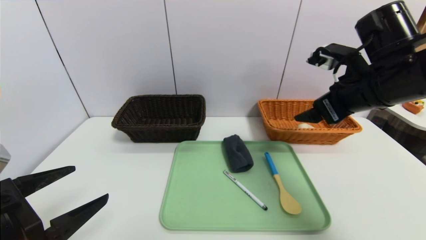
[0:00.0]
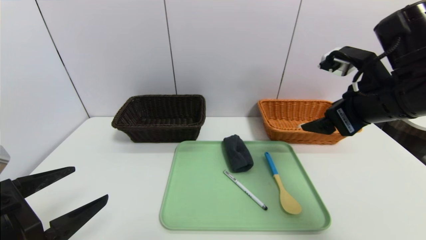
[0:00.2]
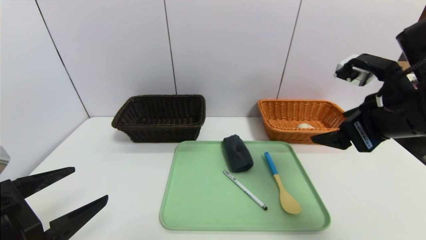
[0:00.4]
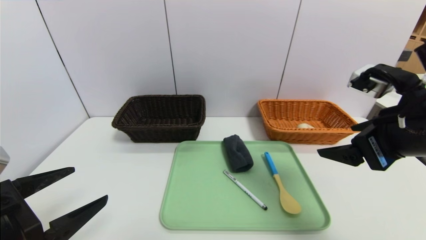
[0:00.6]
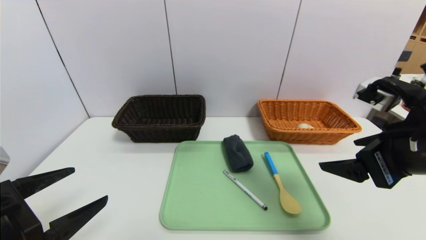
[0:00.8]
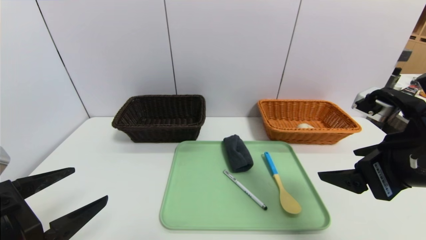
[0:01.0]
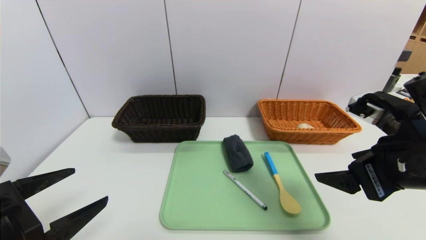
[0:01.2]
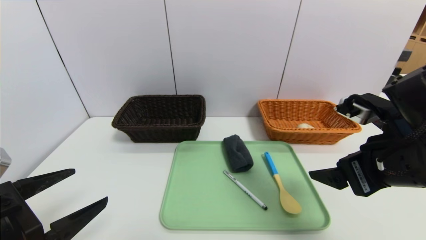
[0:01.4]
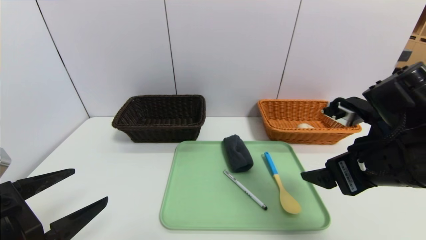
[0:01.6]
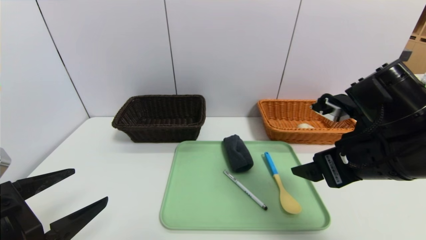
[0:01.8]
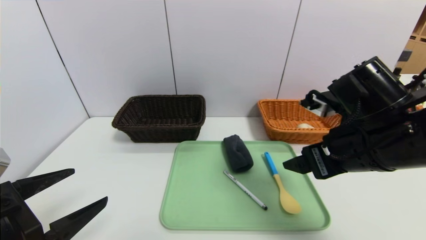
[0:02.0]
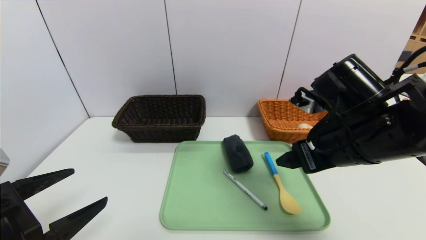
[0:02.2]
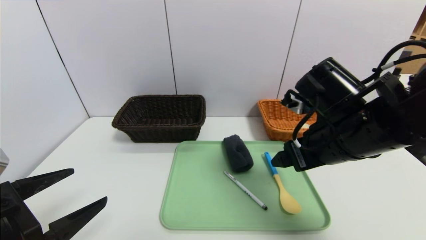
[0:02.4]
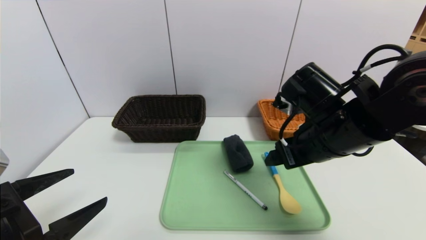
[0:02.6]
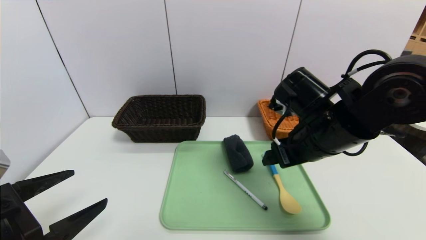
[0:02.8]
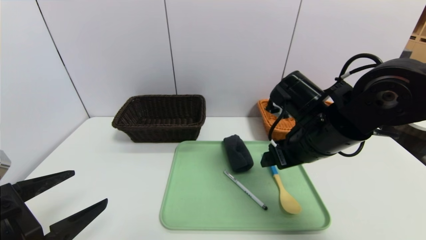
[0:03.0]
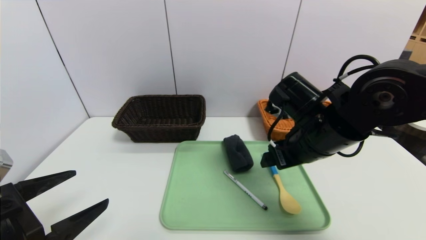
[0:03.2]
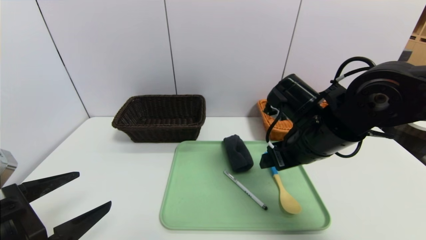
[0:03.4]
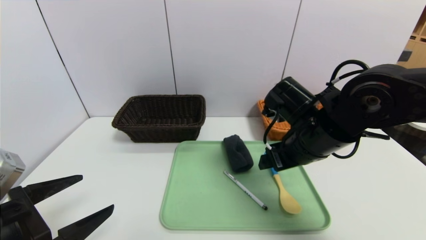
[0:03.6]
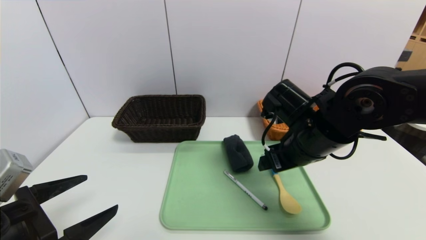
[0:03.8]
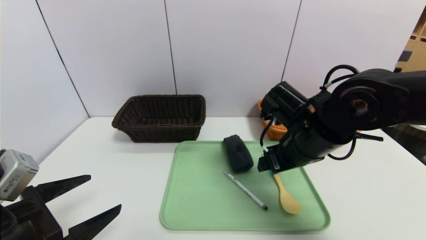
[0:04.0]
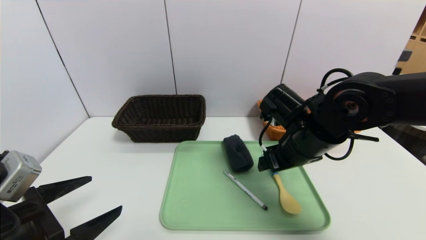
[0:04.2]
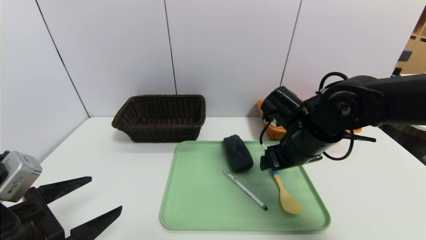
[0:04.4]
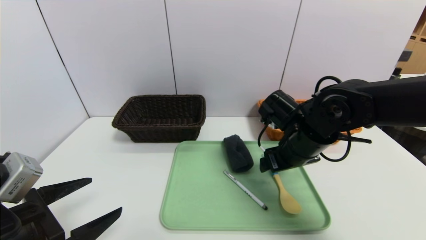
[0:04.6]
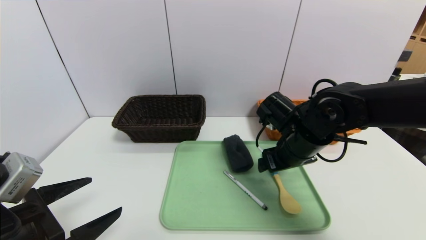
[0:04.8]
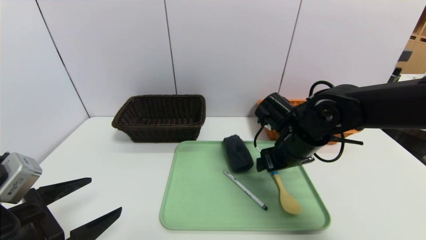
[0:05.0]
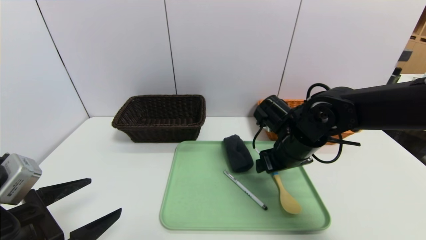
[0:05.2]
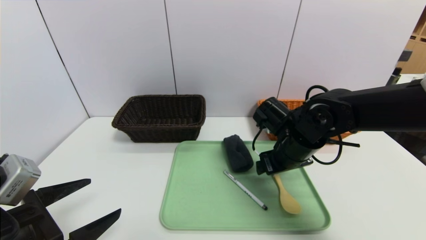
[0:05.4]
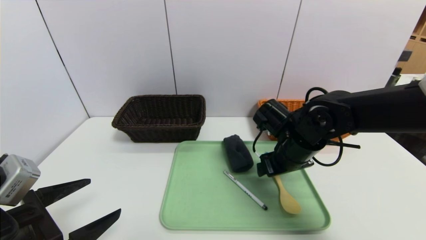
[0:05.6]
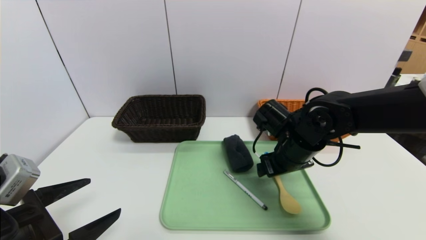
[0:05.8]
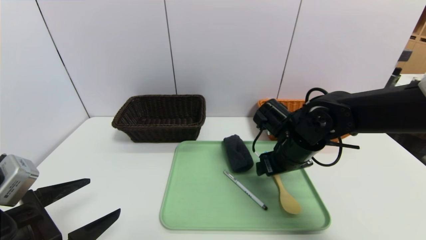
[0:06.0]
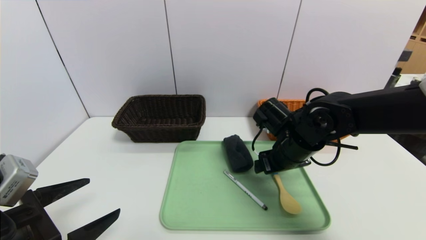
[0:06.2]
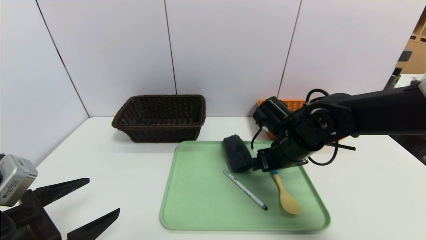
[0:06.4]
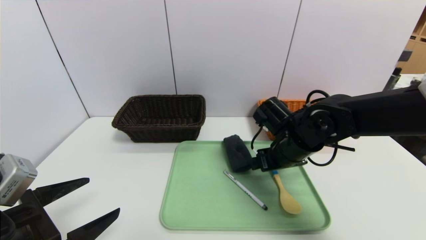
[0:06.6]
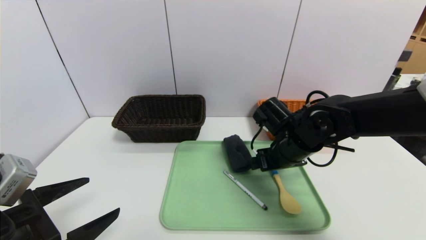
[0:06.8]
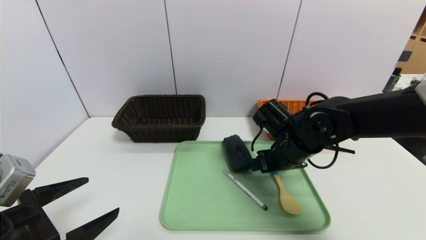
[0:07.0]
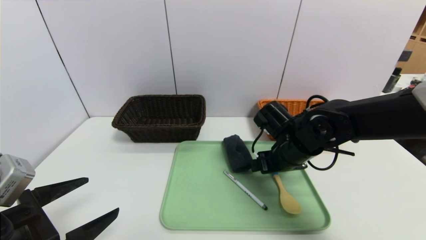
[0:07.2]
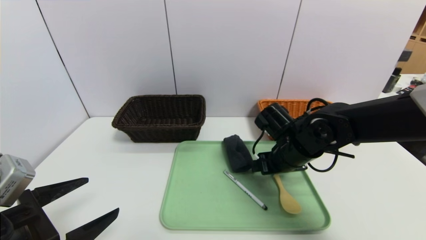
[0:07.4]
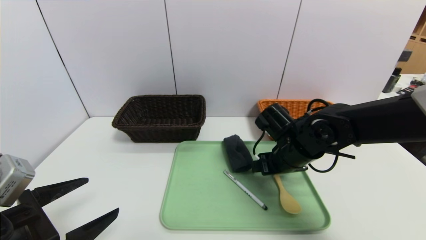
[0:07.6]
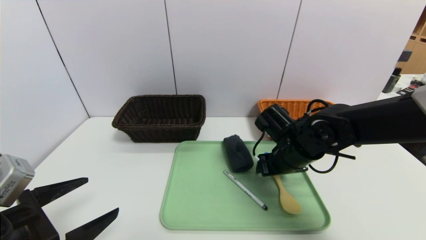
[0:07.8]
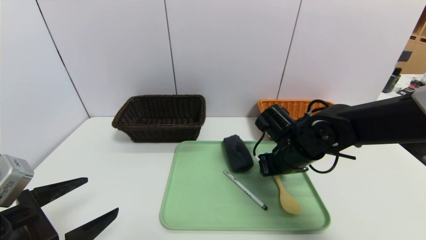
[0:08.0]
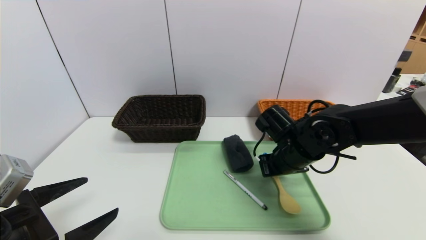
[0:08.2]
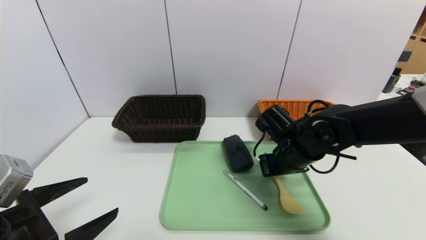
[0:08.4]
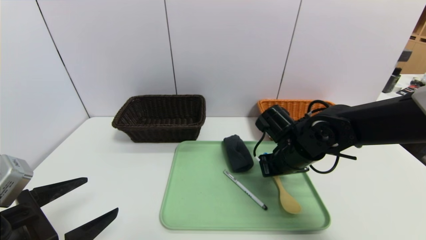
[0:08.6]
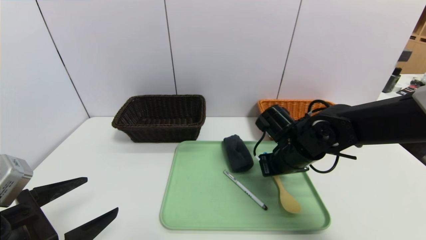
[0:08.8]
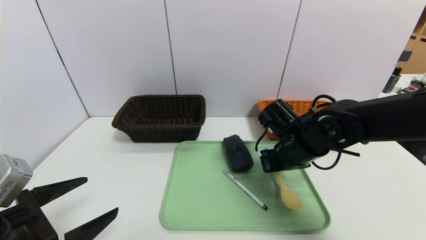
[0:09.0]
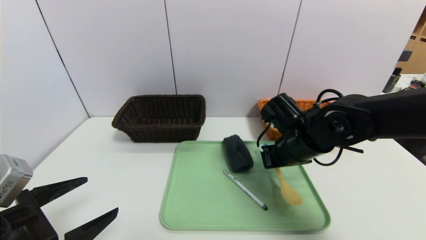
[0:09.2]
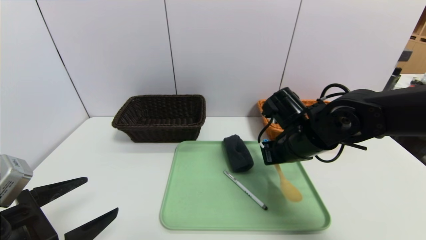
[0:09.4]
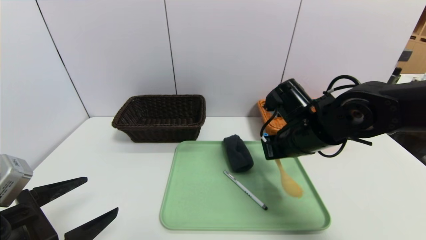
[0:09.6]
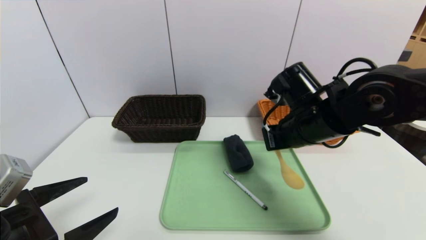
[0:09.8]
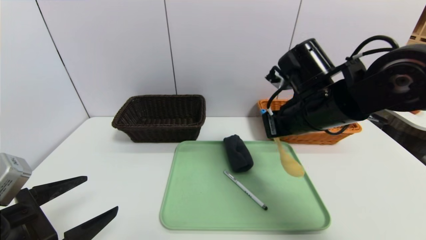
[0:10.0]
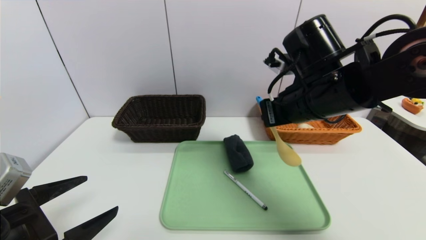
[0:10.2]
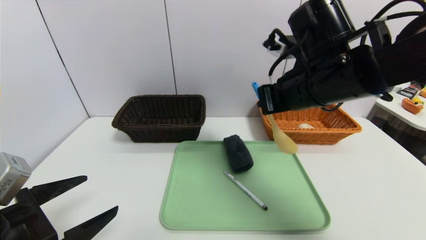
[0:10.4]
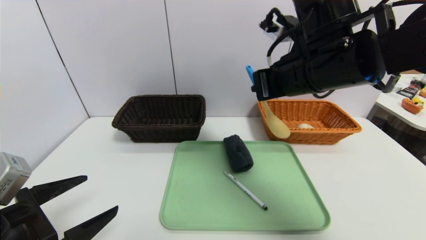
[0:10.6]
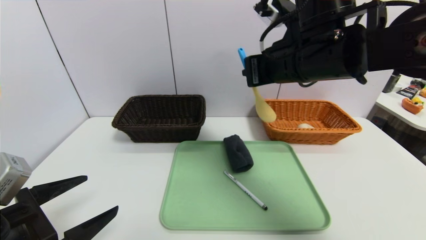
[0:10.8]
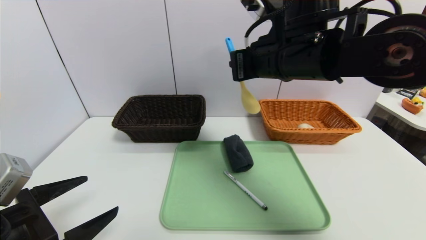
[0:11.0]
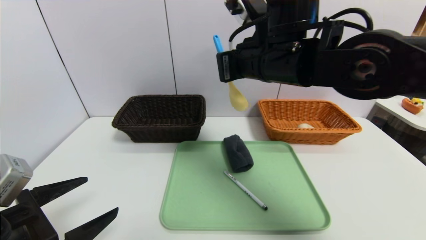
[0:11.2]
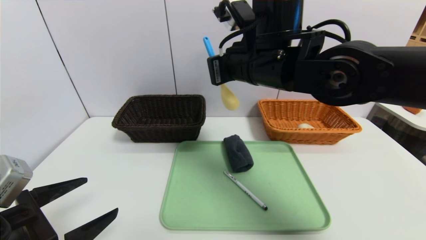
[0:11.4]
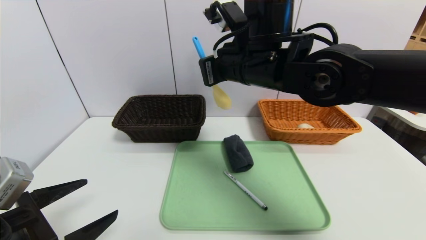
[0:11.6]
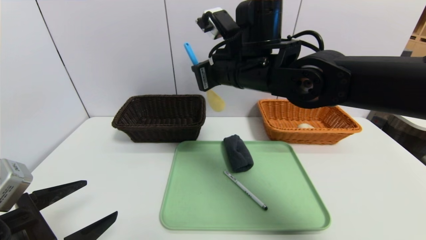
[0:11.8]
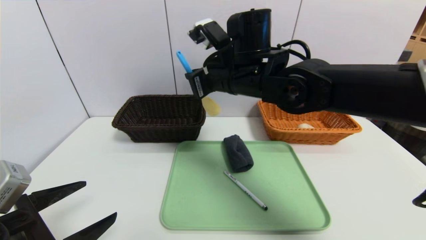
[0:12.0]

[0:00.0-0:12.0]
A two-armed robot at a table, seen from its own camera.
Task of the whole recording: place the food in the right basket with the right gripper, and place the non food items in the left basket with the left gripper.
0:00.0 to 0:01.6: The right gripper shifts some 10 cm backward and downward.
0:01.6 to 0:03.0: The right gripper shifts roughly 10 cm forward and to the left.
0:03.0 to 0:04.4: The grippers stay close to where they were, moving slightly.
0:04.4 to 0:07.6: There are only small adjustments of the grippers.
0:07.6 to 0:09.0: The right gripper closes its fingers.
0:09.0 to 0:10.4: The right gripper is displaced upward by approximately 15 cm.
0:10.4 to 0:12.0: The right gripper heads to the left and forward, covering approximately 10 cm.

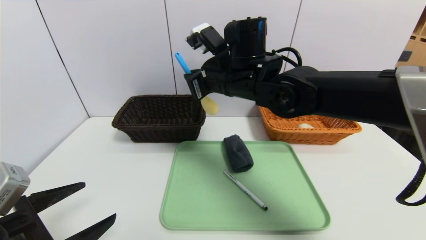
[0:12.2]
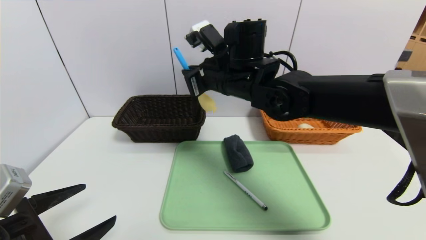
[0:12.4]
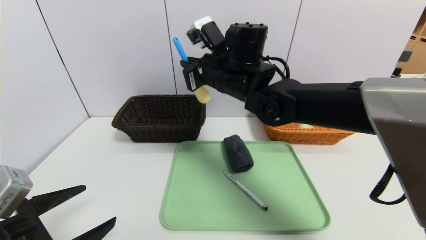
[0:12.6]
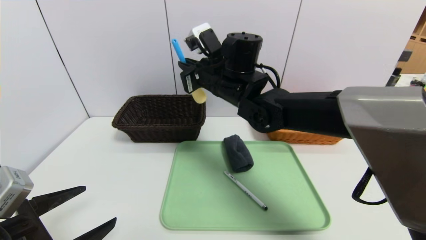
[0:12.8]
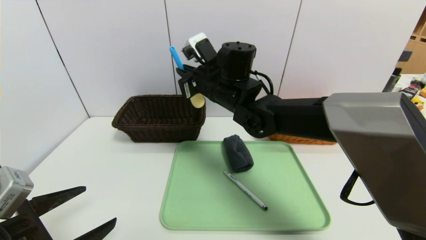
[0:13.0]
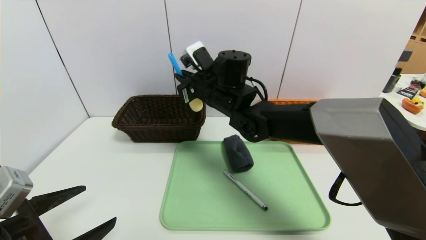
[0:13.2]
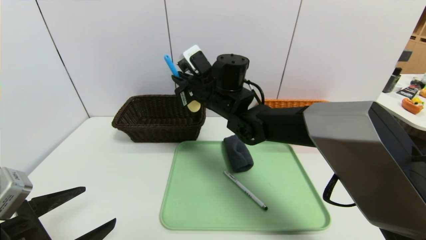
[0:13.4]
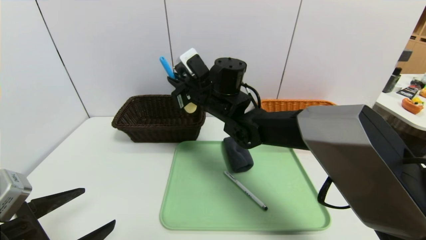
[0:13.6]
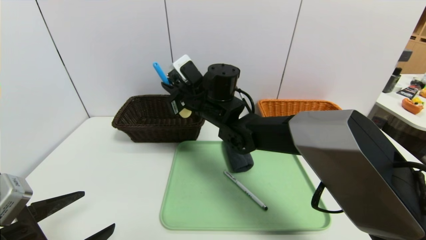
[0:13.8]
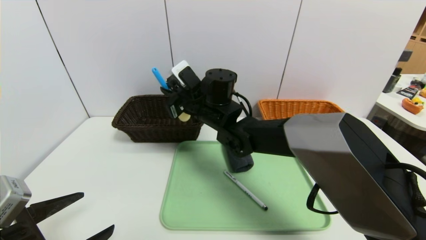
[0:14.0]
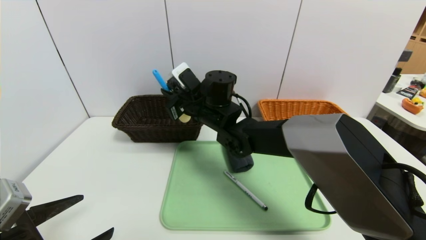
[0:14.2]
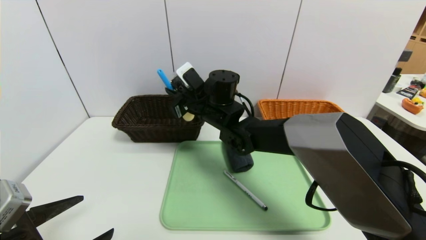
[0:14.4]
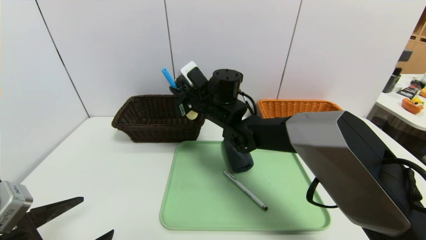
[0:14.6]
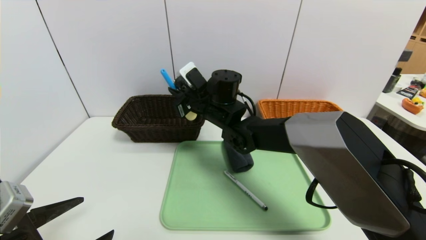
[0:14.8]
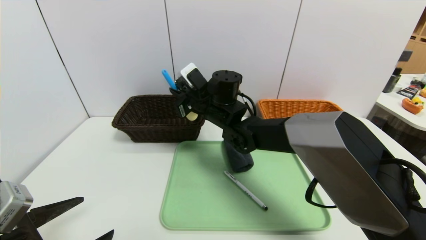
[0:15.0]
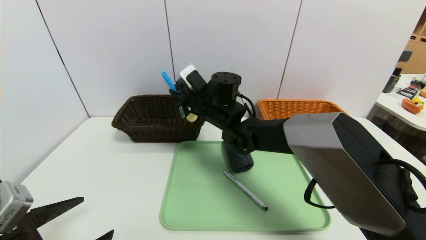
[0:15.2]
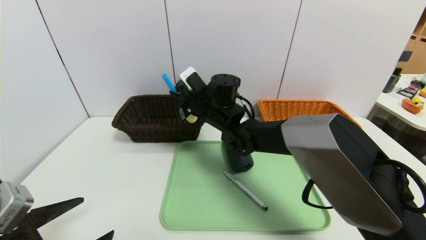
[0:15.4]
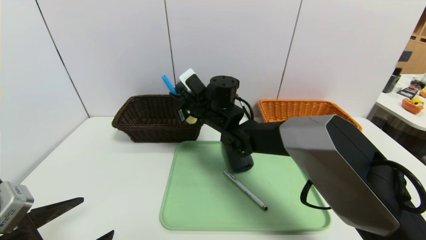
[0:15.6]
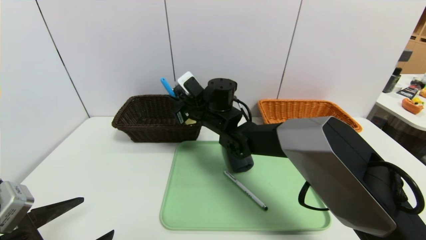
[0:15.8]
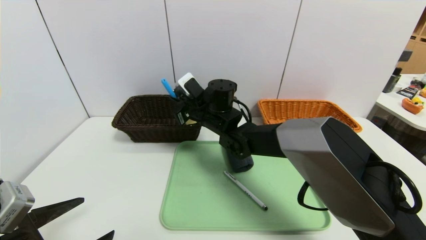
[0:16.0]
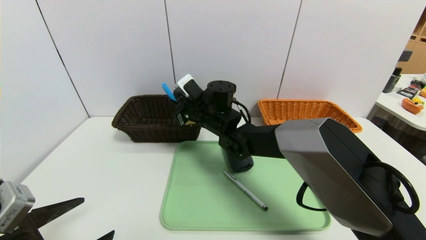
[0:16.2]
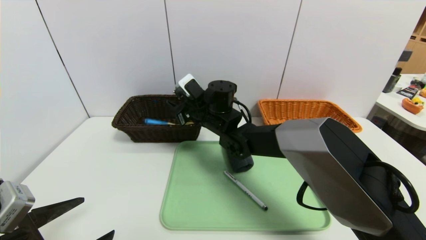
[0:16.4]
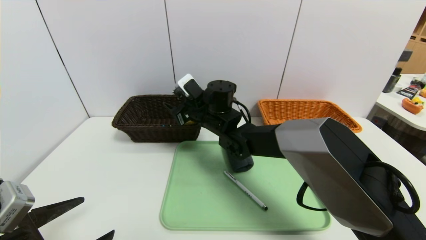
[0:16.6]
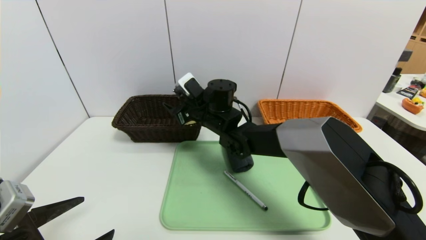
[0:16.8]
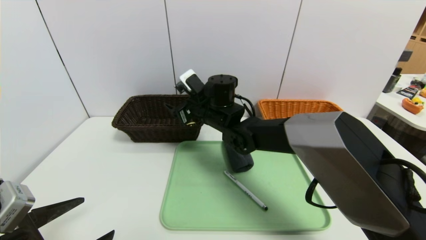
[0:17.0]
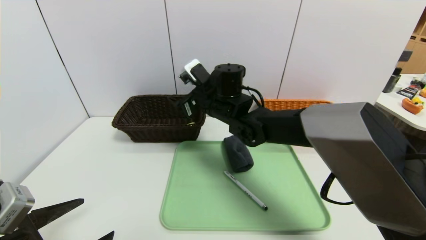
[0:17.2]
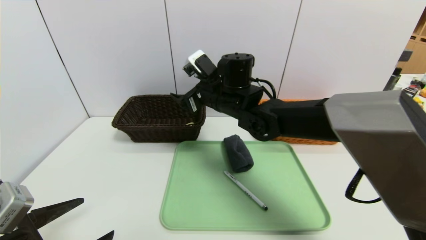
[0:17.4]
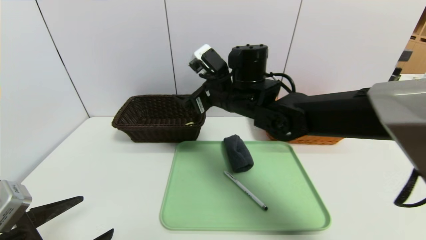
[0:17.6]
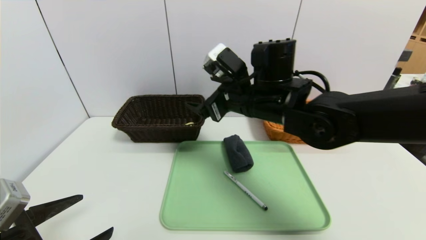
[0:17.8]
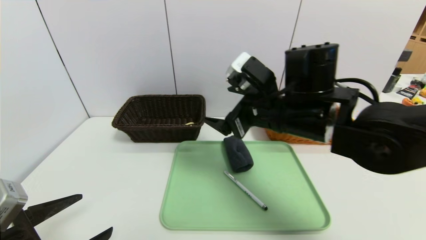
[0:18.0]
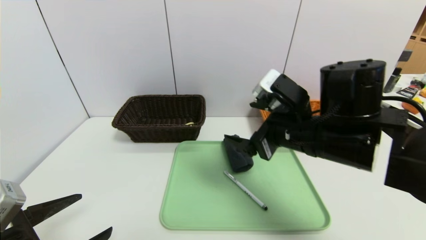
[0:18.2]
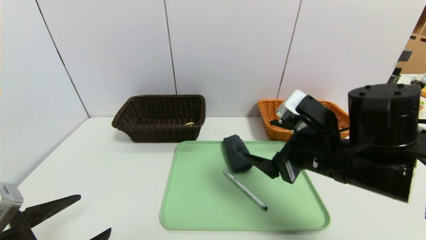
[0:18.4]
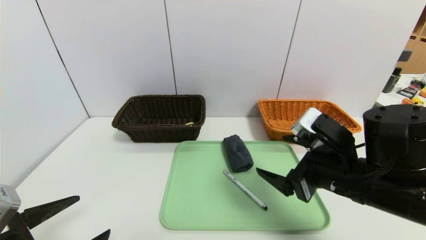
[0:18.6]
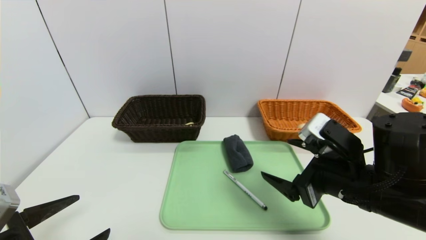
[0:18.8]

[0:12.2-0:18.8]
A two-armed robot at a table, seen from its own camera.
Task of the whole recording: place the food in the right basket with the right gripper, and place the non food items in the left basket with the left gripper.
0:12.2 to 0:13.8: The right gripper is displaced downward and to the left by about 10 cm.
0:13.8 to 0:15.4: The grippers move only a little.
0:15.4 to 0:17.2: The right gripper opens.
0:17.2 to 0:18.8: The right gripper heads backward and to the right, covering approximately 30 cm.
